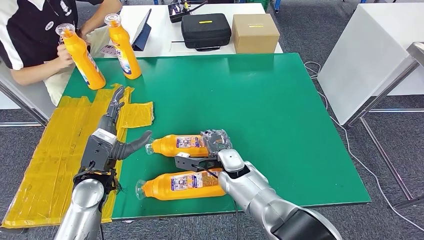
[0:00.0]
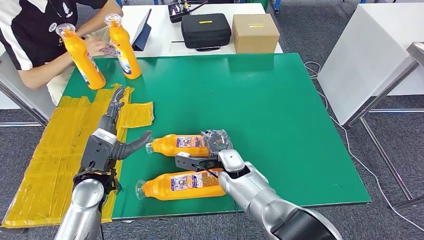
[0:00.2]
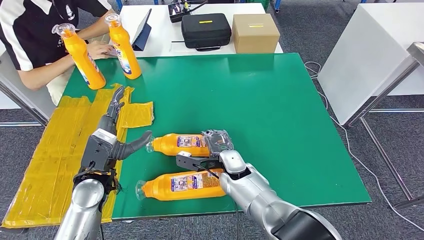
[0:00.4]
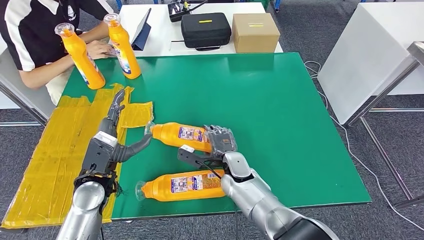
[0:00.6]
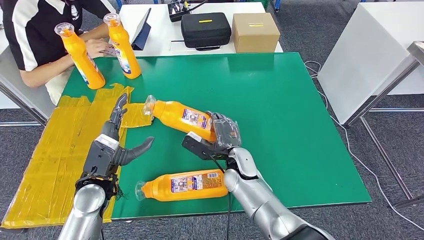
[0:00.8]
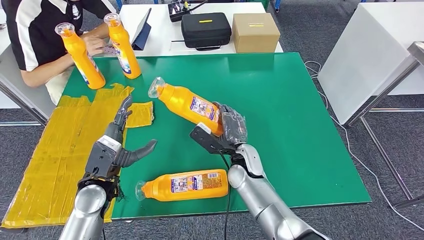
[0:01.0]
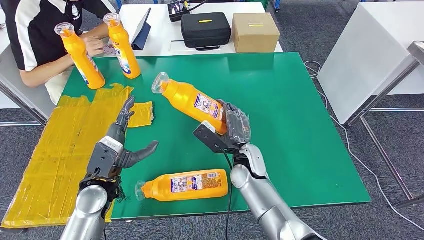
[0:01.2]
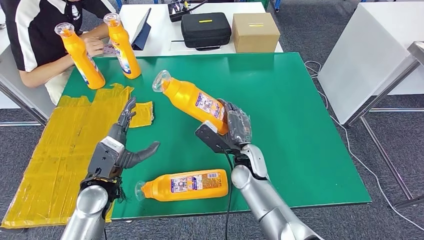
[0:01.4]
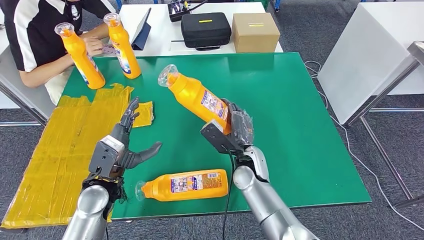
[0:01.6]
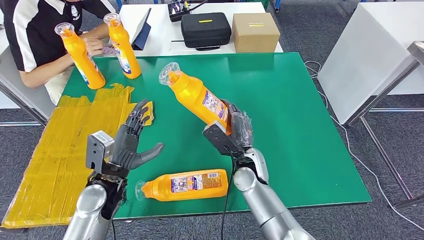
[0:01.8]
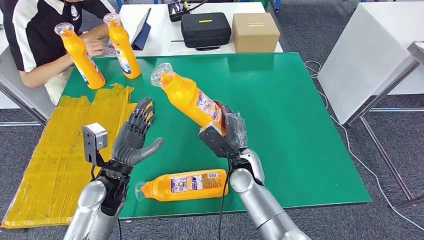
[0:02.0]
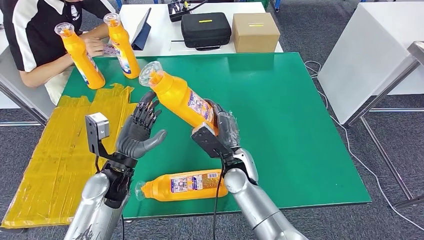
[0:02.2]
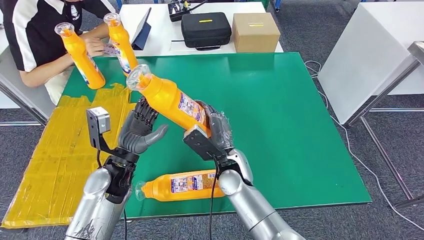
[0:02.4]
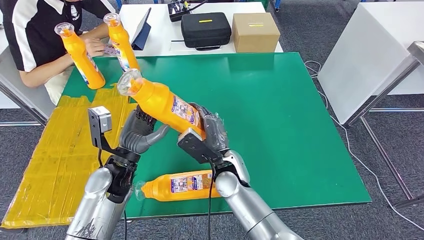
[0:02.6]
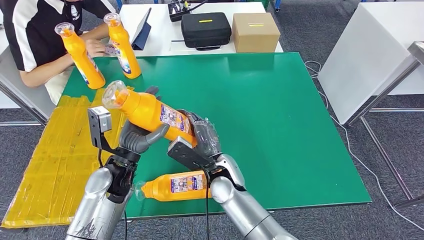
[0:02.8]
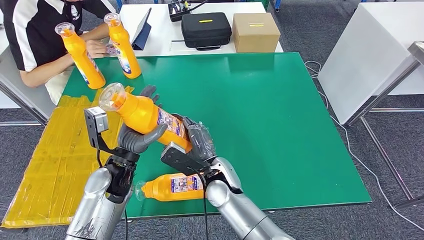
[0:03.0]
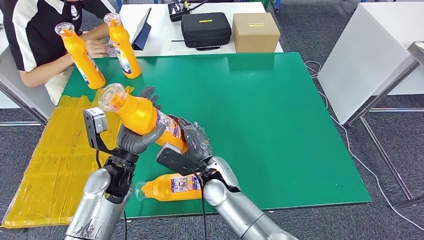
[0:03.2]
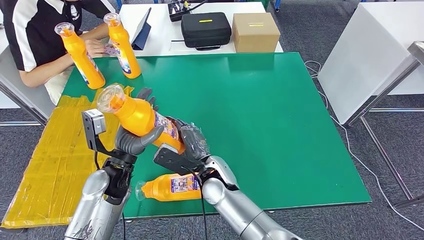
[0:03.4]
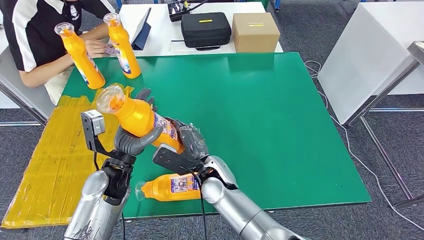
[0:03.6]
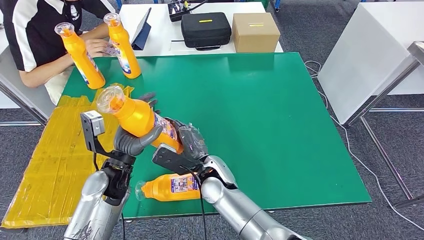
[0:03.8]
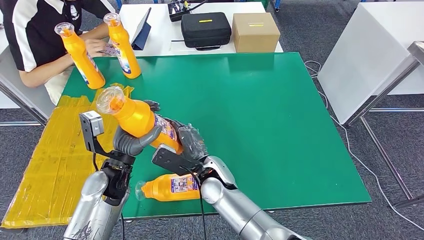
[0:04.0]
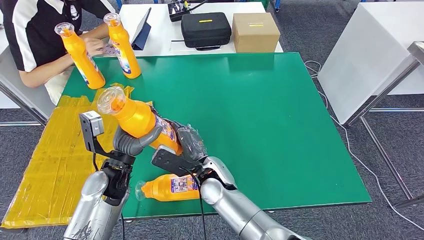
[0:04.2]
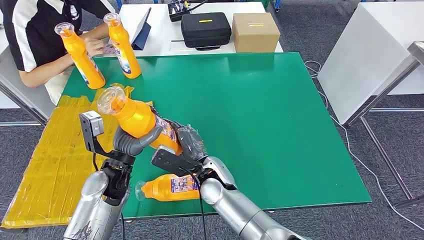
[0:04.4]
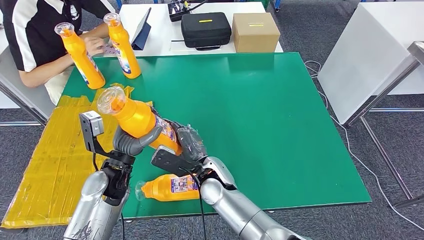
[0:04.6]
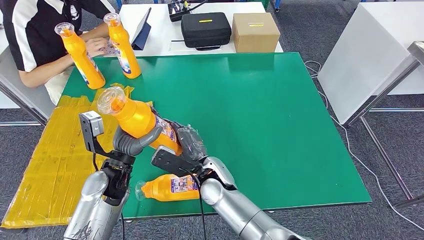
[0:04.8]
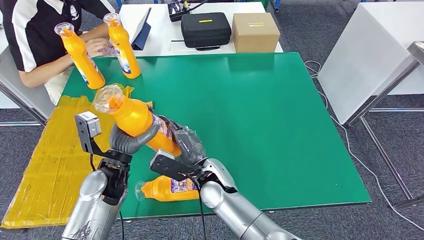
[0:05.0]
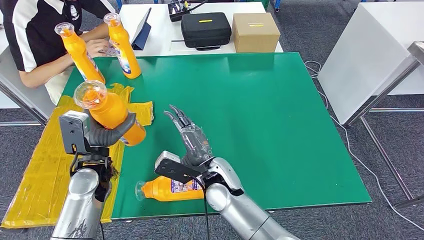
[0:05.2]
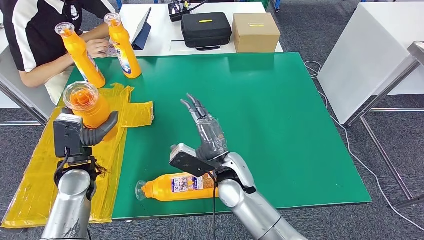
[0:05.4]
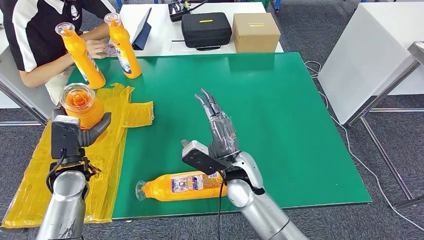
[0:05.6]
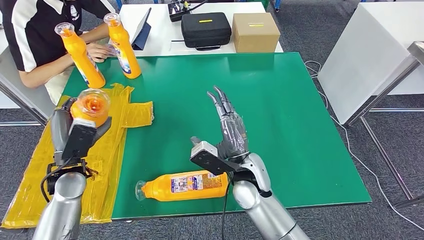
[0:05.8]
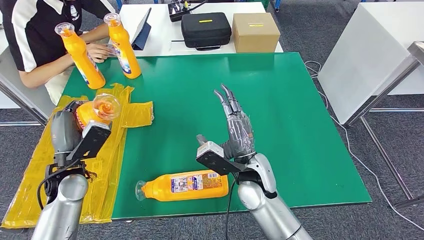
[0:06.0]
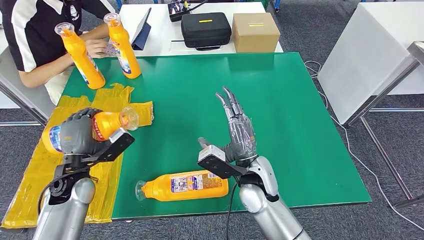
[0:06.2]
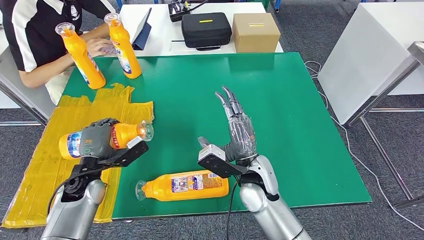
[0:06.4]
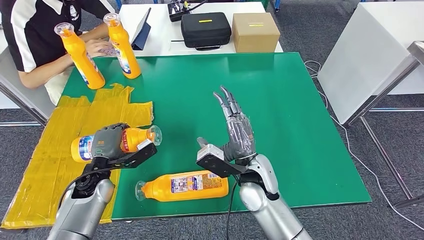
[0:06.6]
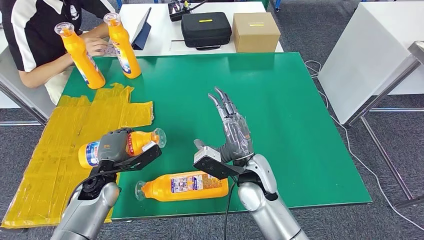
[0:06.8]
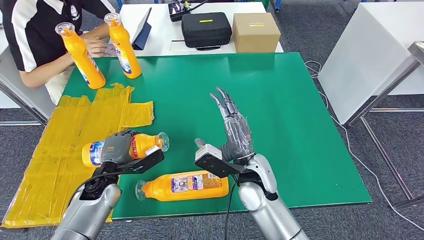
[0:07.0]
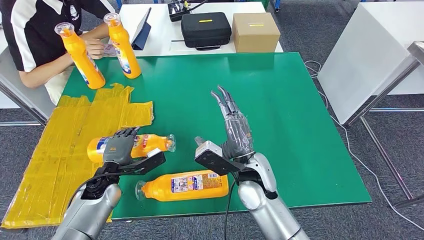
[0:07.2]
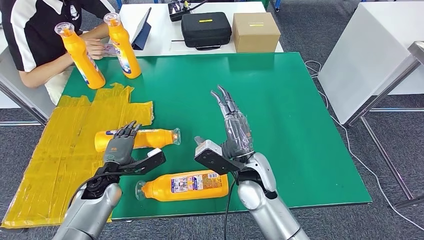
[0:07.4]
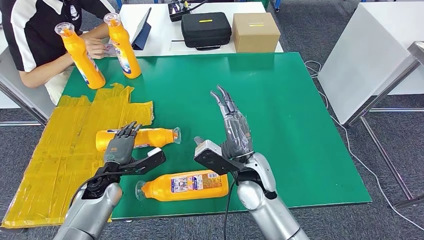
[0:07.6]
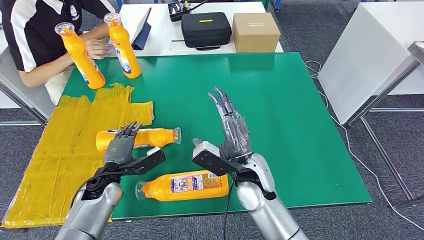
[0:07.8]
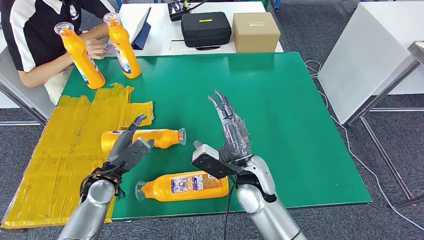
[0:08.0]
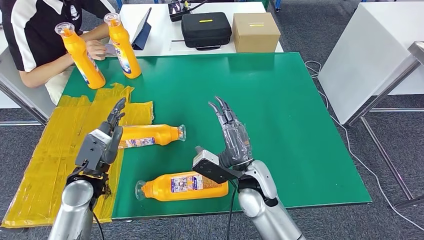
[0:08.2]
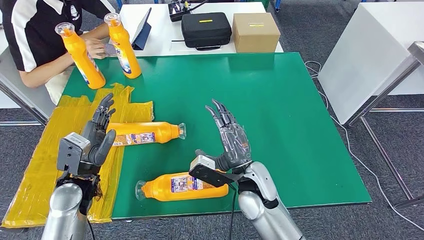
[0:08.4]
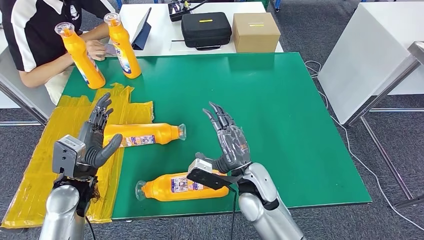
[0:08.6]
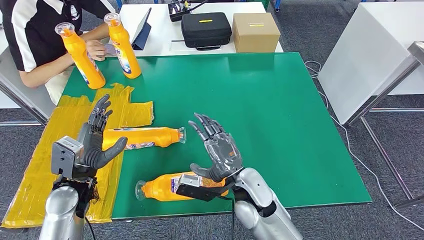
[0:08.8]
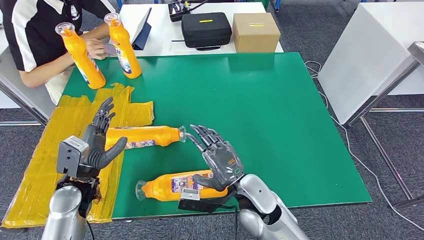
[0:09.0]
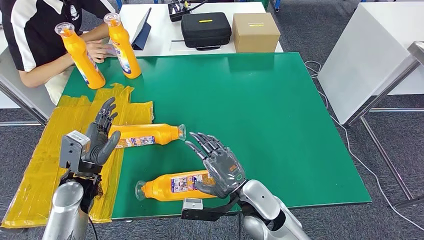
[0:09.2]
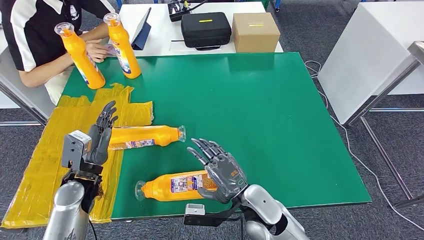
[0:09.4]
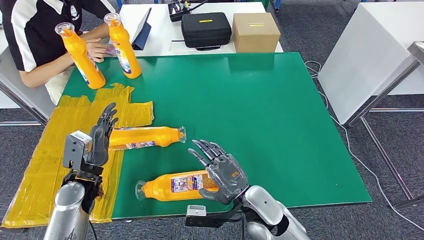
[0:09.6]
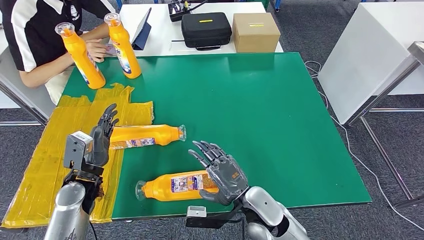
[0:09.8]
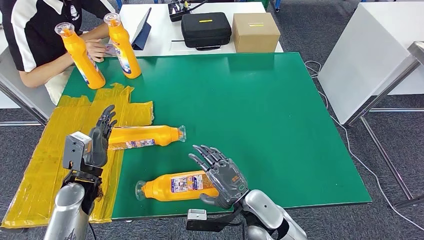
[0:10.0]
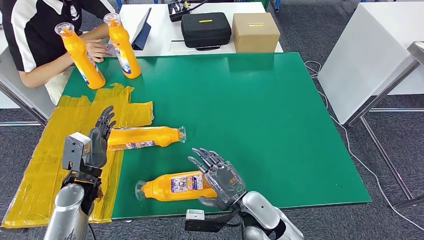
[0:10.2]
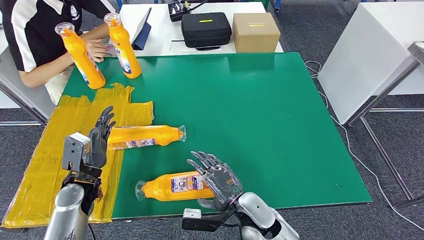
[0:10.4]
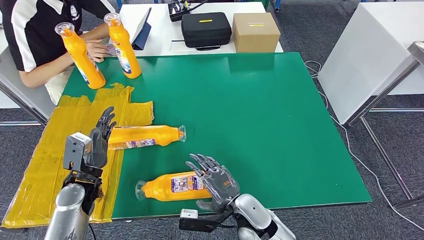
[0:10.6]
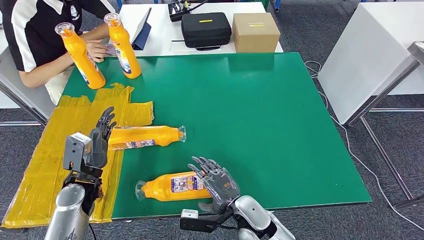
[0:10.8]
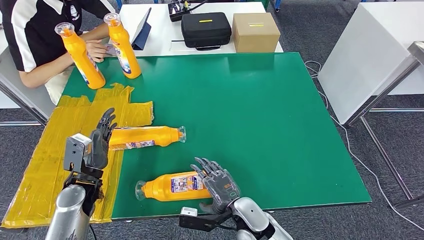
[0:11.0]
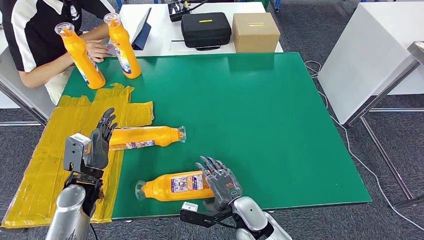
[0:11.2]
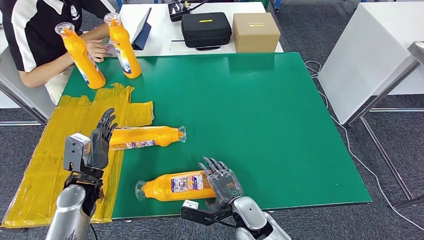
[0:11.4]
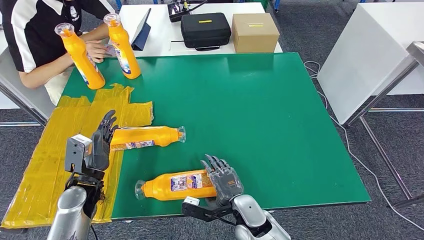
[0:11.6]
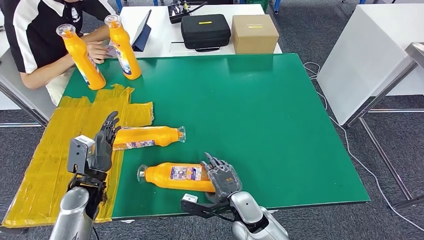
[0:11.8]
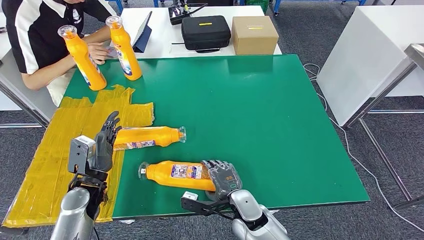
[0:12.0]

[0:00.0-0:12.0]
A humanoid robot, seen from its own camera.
Step, 0:00.0 to 0:02.2: Pick up the bottle from the table.
Step, 0:02.4 to 0:08.4: Flip the bottle to face forward.
0:01.6 to 0:03.0: The right hand is displaced to the left by about 10 cm.
0:03.0 to 0:04.4: There are only small adjustments of the hands.
0:04.4 to 0:06.0: The right hand travels to the right by roughly 10 cm. Meanwhile the left hand is displaced to the left by approximately 10 cm.
0:06.0 to 0:07.6: The left hand moves downward and to the right, roughly 10 cm.
0:07.6 to 0:09.0: The right hand shifts by some 5 cm, while the left hand moves upward, about 5 cm.
0:09.0 to 0:10.4: The right hand goes approximately 5 cm downward.

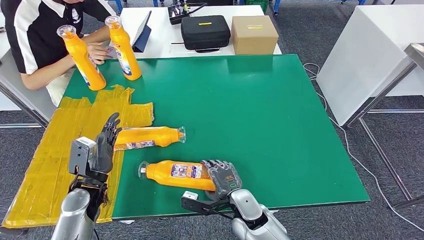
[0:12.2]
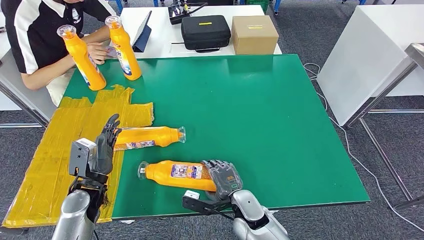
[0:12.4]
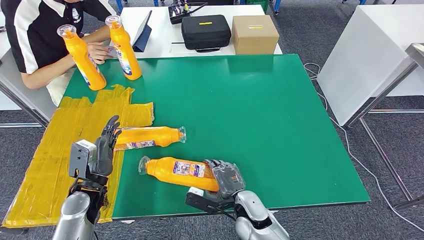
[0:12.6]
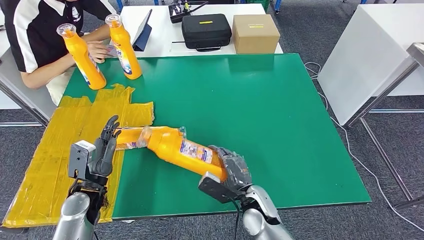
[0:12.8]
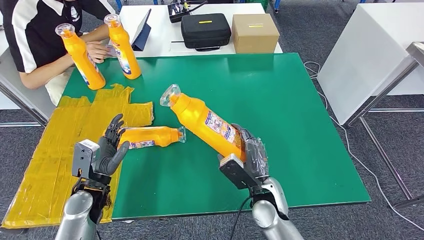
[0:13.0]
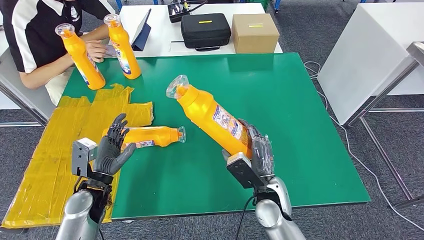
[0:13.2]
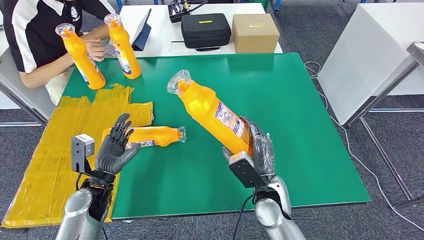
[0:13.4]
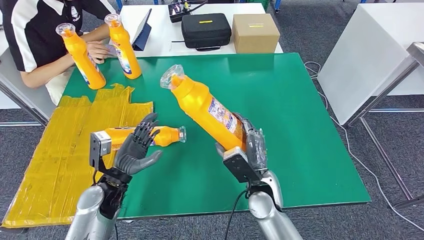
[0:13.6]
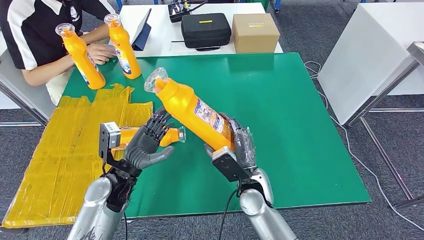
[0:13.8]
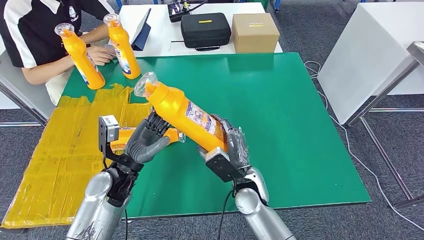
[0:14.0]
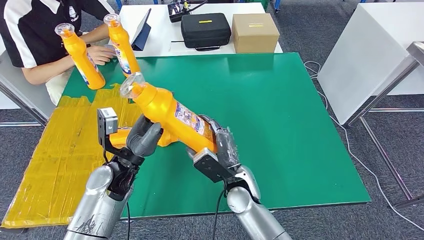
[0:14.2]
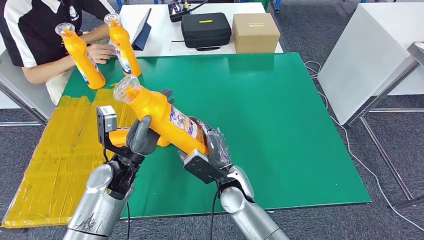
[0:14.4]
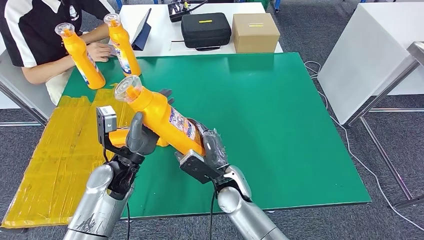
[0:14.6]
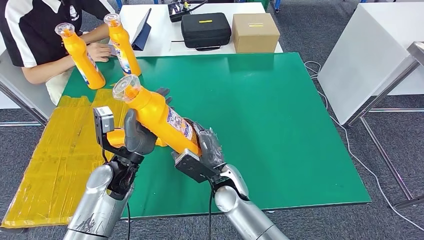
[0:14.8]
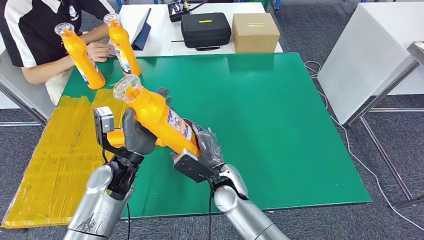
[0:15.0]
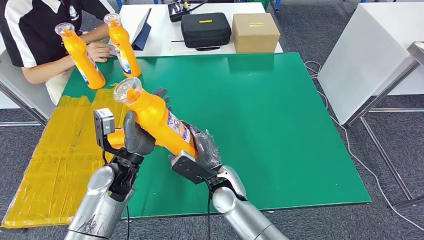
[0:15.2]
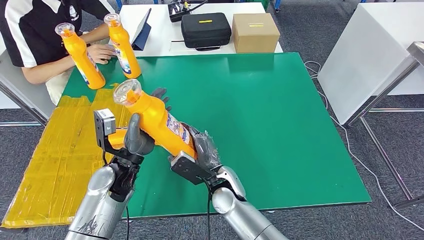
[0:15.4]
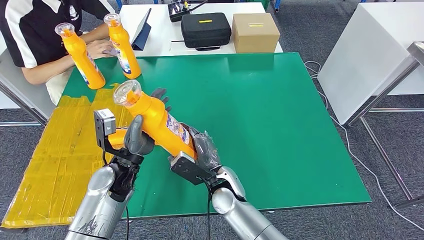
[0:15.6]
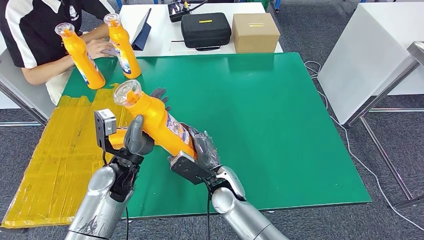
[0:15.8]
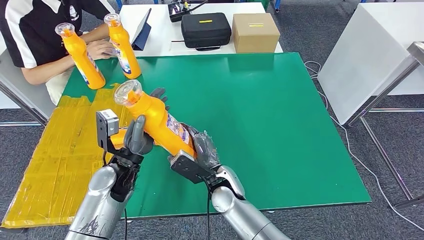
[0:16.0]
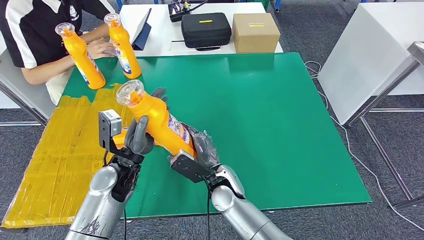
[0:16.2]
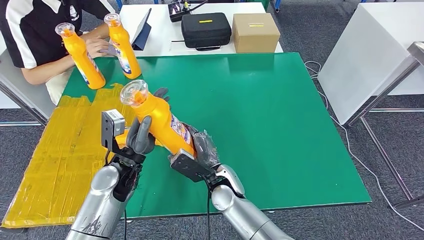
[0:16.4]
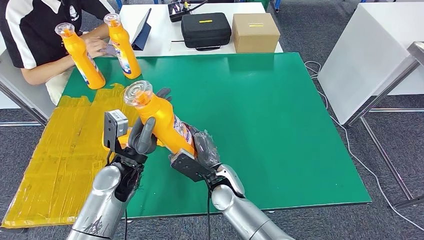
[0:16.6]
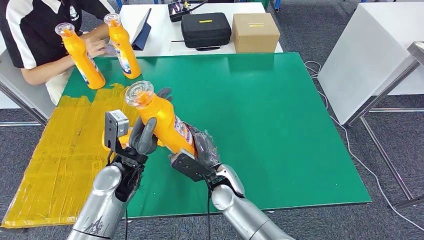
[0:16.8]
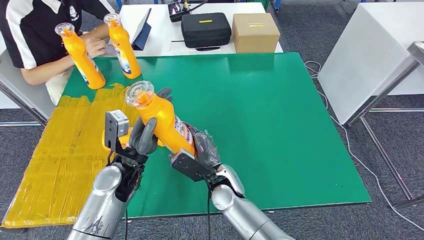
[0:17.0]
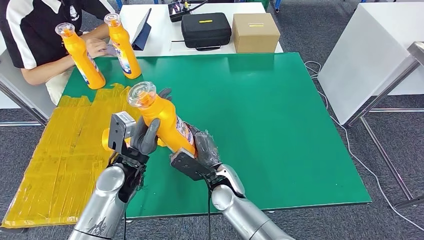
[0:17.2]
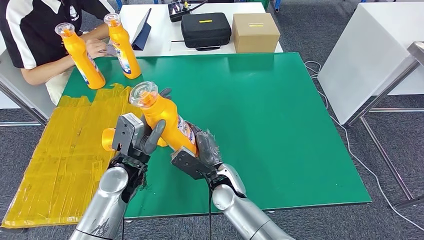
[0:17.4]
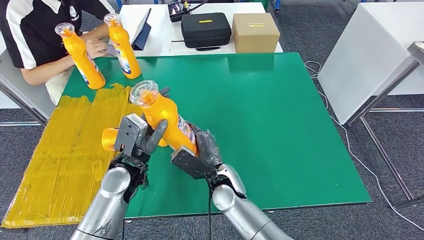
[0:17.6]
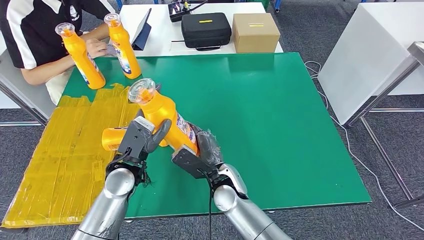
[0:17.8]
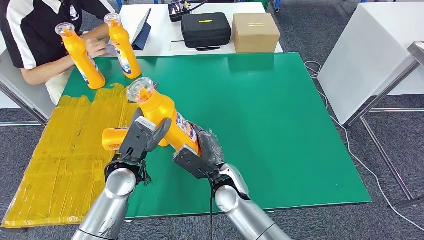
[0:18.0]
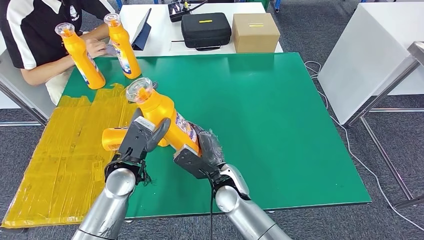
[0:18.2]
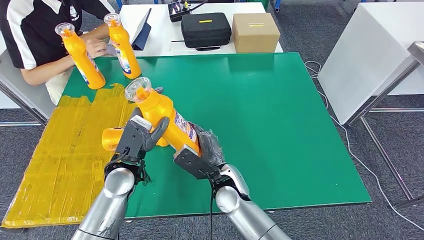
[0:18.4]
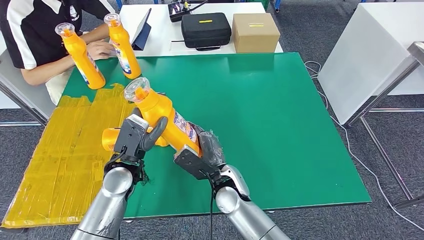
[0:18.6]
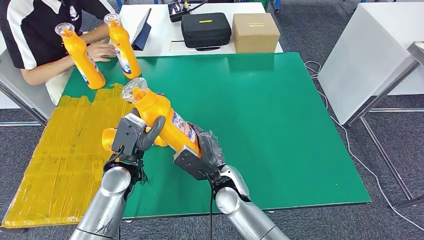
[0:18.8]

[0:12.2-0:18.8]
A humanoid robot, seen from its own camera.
Step, 0:12.2 to 0:15.4: Pick up the bottle from the table.
0:13.8 to 0:15.4: The right hand moves to the left, about 10 cm.
0:15.4 to 0:17.2: The hands make only small movements.
